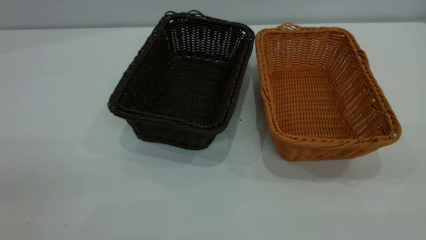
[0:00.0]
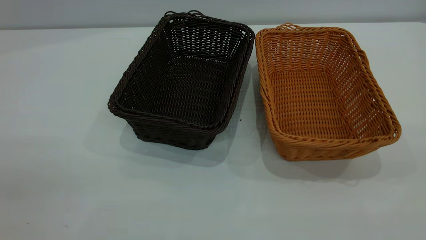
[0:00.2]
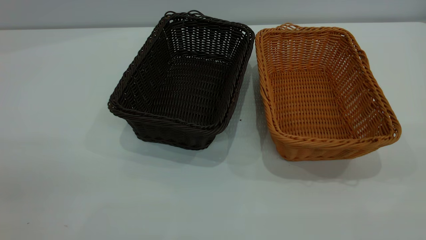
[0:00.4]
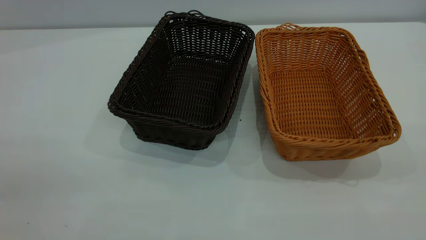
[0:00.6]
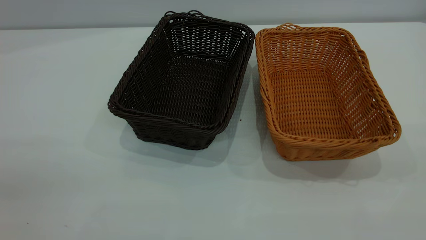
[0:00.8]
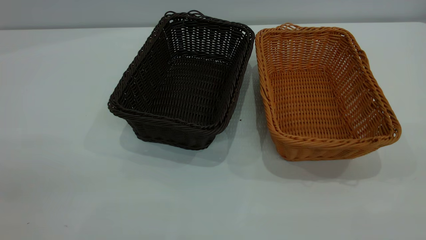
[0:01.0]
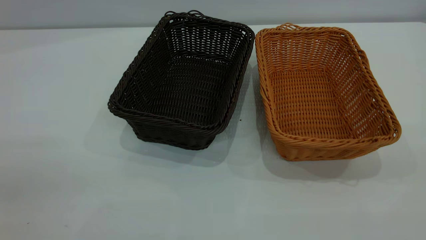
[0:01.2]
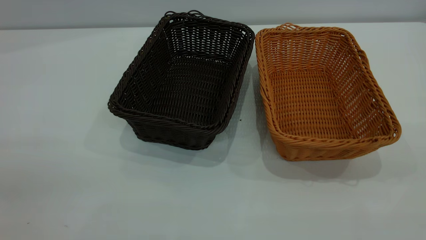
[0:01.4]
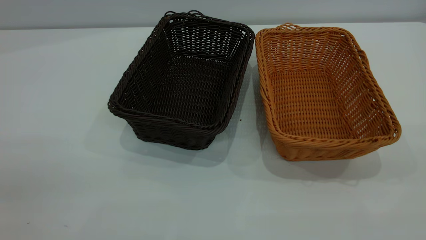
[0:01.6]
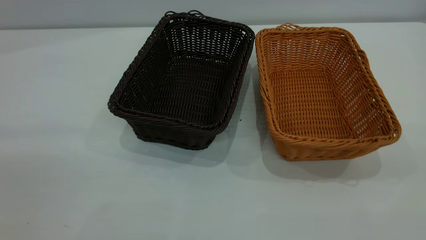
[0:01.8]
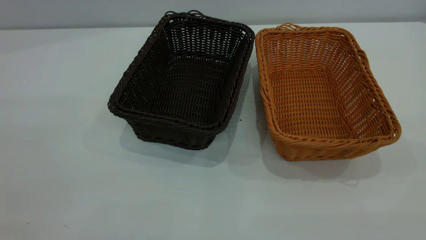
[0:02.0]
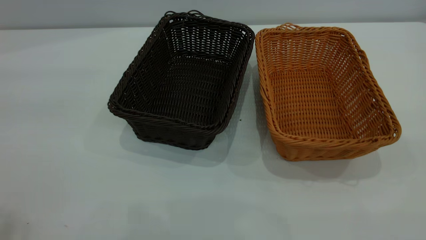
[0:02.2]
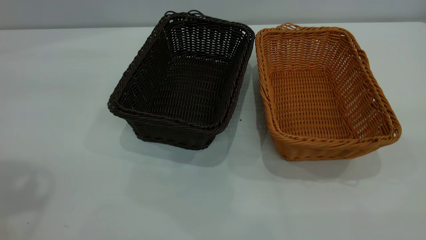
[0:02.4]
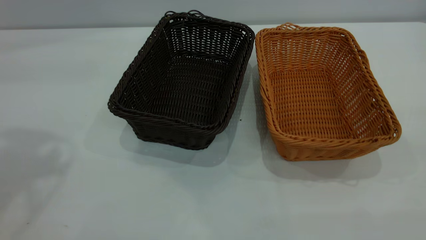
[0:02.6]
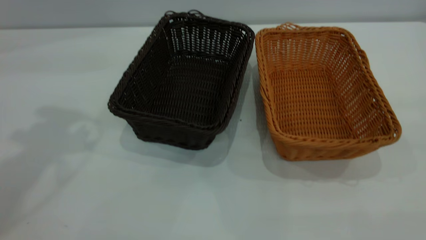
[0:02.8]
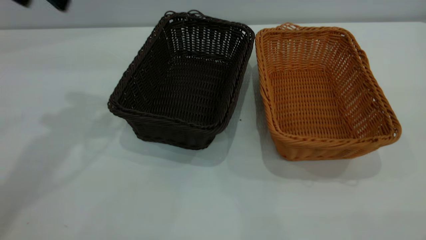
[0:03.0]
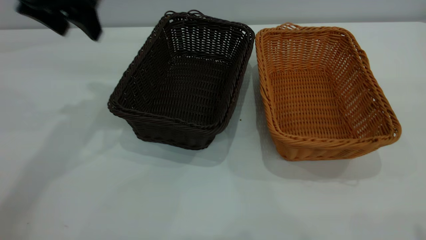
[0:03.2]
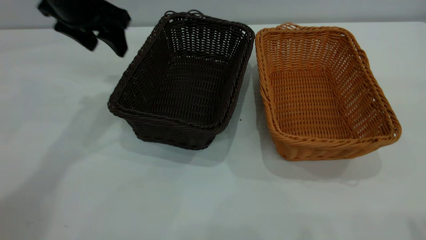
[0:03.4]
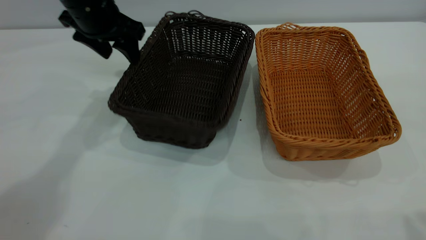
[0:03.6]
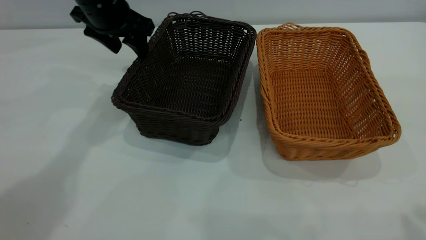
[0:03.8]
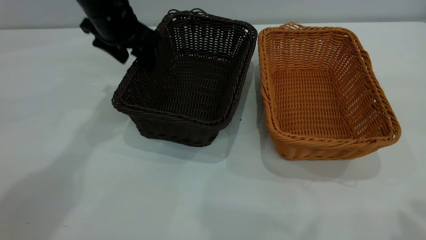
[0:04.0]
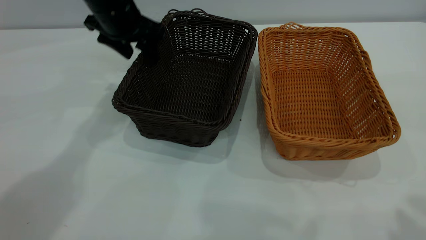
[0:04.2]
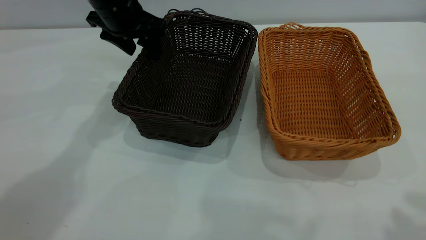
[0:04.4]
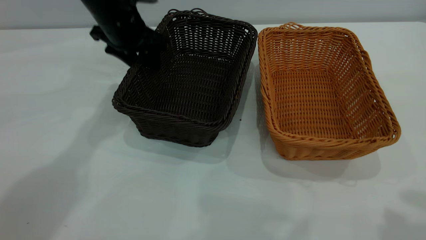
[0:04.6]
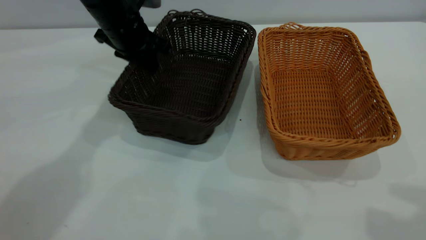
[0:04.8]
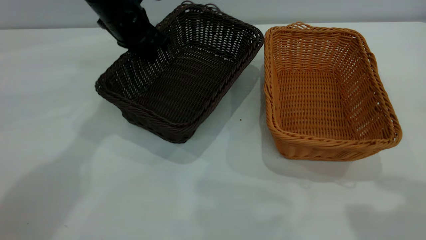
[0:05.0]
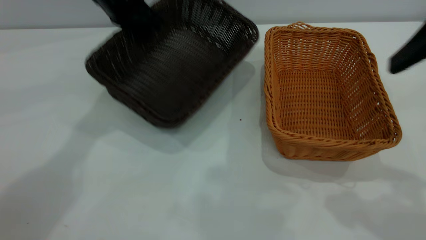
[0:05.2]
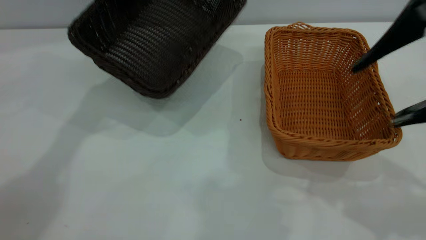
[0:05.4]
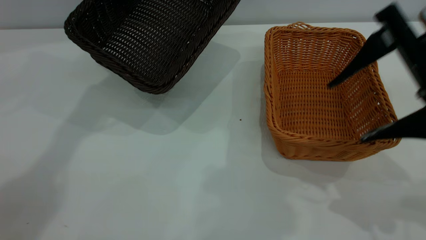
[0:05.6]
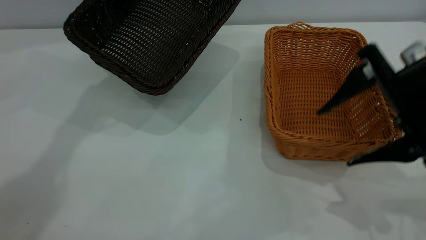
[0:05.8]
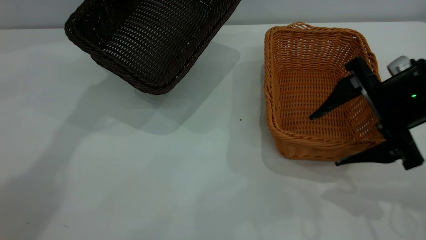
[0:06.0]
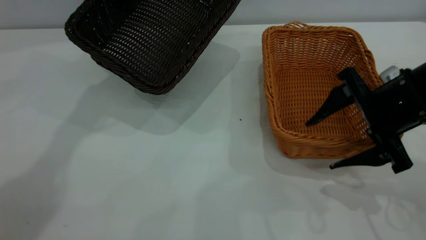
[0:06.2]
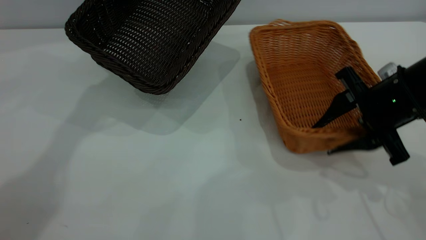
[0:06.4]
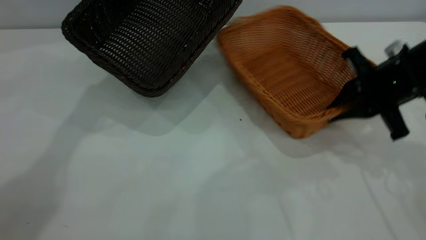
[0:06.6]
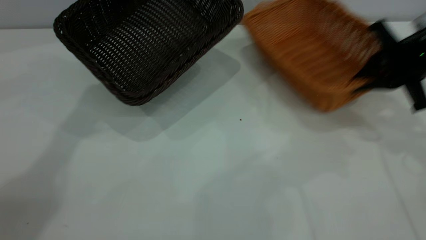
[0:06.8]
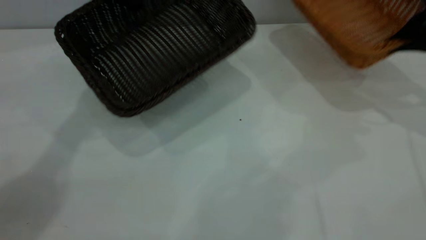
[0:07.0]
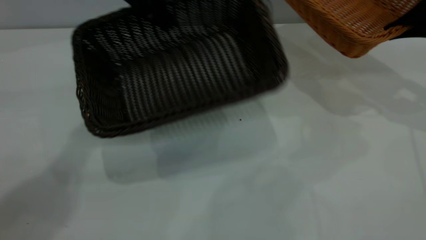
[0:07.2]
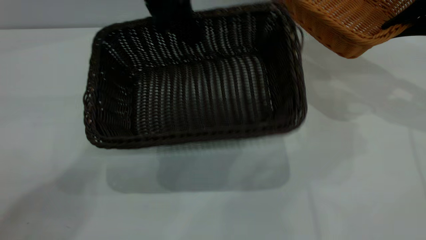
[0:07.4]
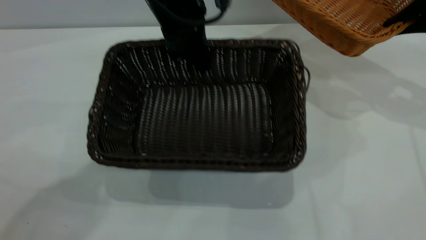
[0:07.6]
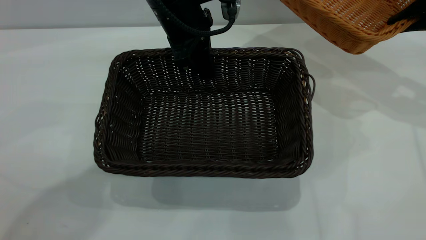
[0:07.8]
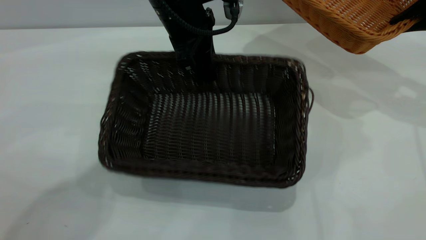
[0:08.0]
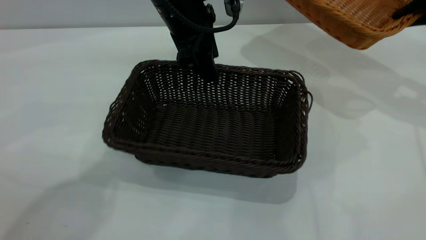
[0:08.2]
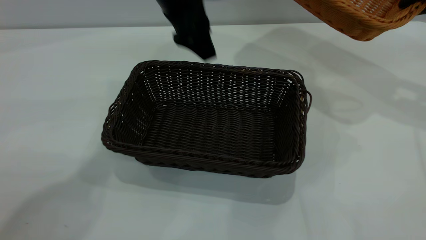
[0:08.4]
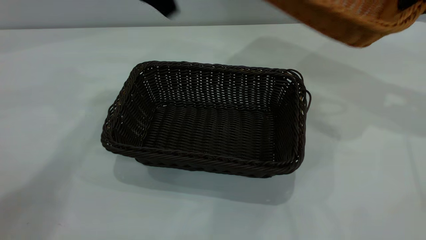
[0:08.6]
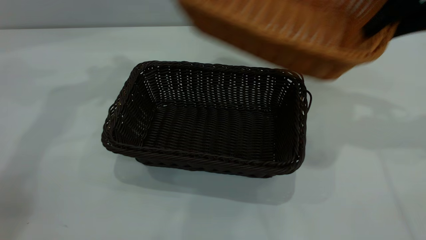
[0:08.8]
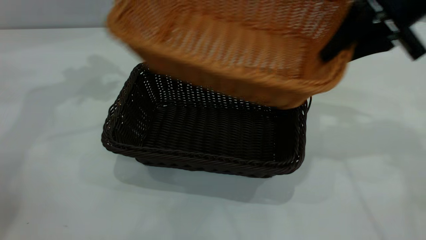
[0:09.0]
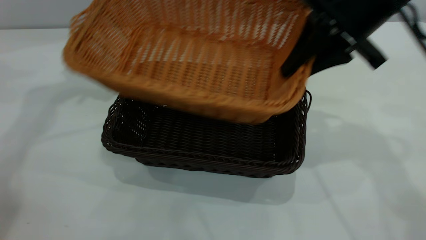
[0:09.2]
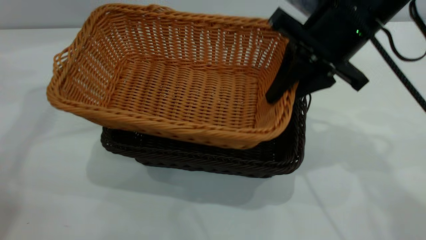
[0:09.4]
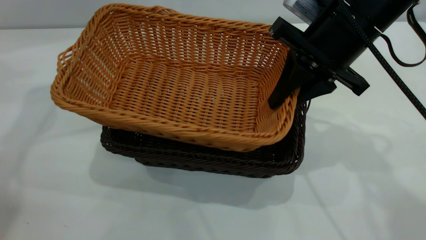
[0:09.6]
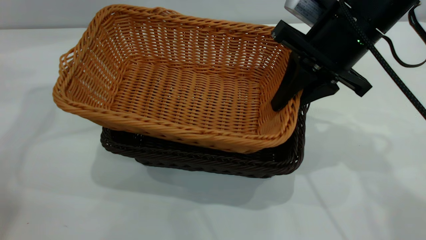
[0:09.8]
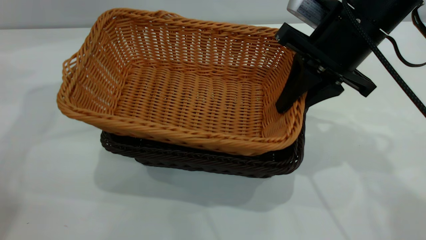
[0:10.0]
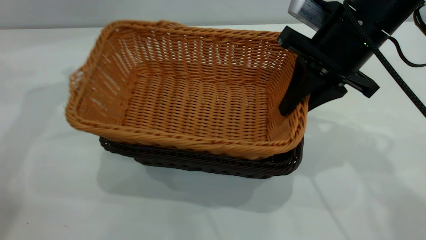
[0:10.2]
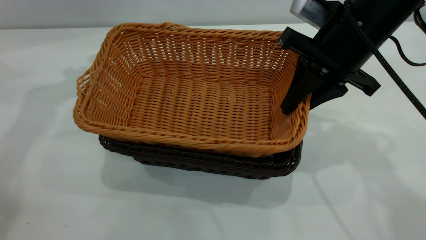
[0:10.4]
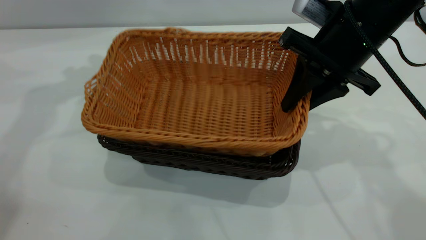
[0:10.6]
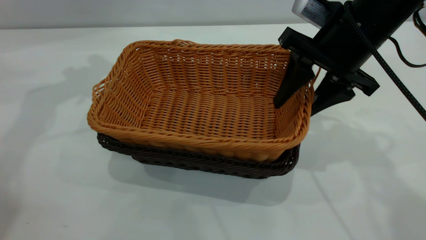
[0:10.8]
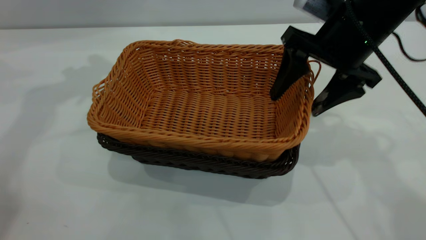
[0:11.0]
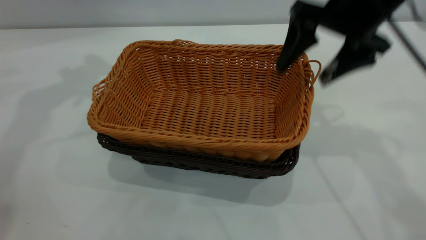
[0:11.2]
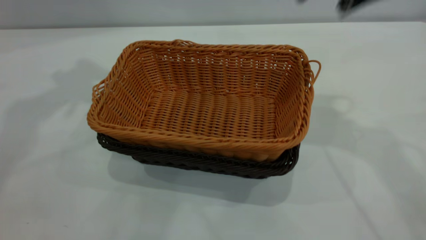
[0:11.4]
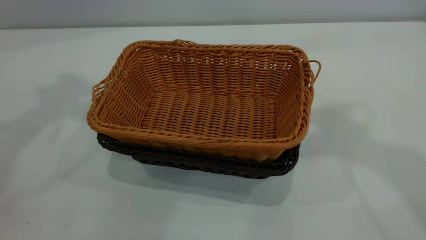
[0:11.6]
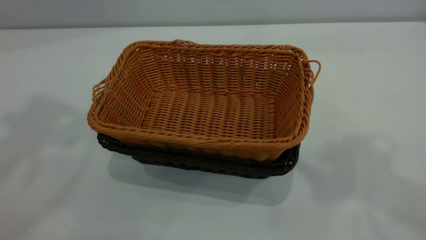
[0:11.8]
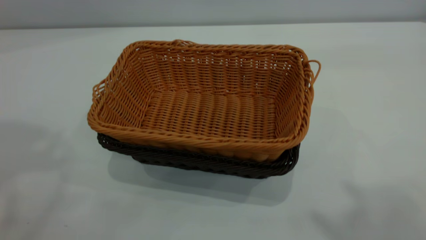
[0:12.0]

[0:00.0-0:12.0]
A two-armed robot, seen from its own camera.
Task of the whole recording: the left gripper grasp the black basket and place it in the center of the table, the right gripper grasp the brown basket and place it inside the black one.
Step, 0:00.0 to 0:06.8: Pick up the light basket with the right gripper.
Step, 0:07.2 to 0:08.4: Move the dark basket to the center of view.
Step, 0:08.6 to 0:11.2: Place the light basket on the dark basket.
0:00.0 to 0:01.6: Both grippers stay about where they are.
0:03.0 to 0:04.4: The left gripper travels downward, forward and to the right by about 20 cm; the right gripper heads forward, covering about 5 cm.
0:04.4 to 0:06.0: The left gripper goes about 5 cm upward, and closes; the right gripper heads downward and forward, covering about 25 cm.
0:06.0 to 0:07.6: The left gripper is displaced to the right, backward and downward by roughly 15 cm. Meanwhile the right gripper moves to the right, forward and upward, roughly 20 cm, and closes its fingers.
0:07.6 to 0:09.0: The right gripper shifts about 15 cm to the left. The left gripper moves to the left and upward, about 25 cm, and opens.
0:09.0 to 0:10.4: The right gripper shifts by roughly 5 cm.
0:10.4 to 0:12.0: The grippers both shift upward and backward by roughly 35 cm. The right gripper opens.
